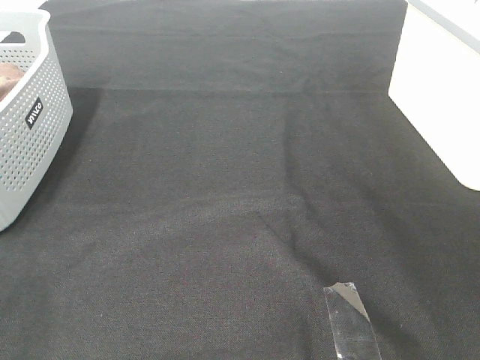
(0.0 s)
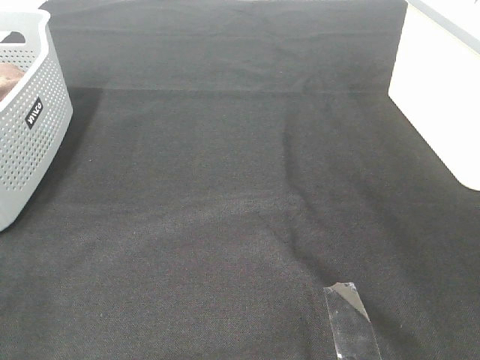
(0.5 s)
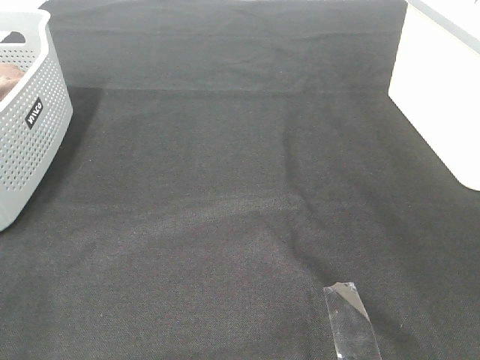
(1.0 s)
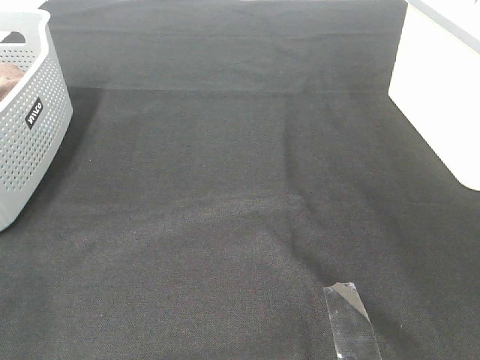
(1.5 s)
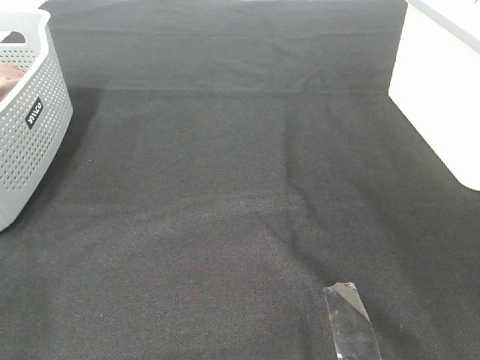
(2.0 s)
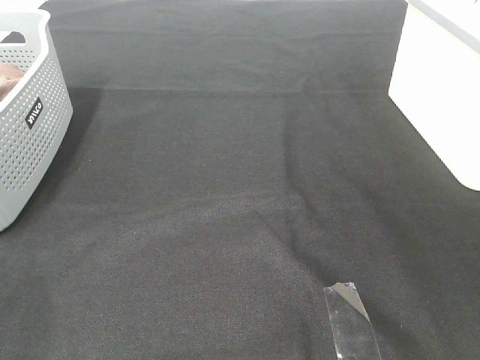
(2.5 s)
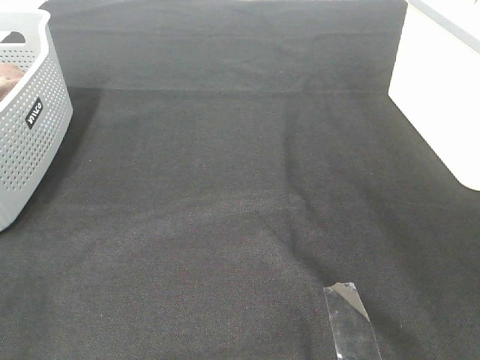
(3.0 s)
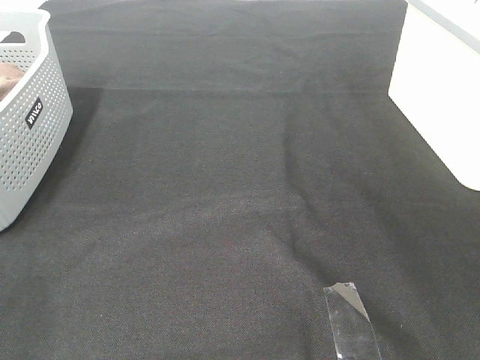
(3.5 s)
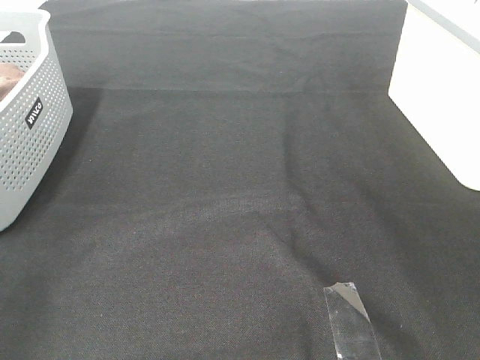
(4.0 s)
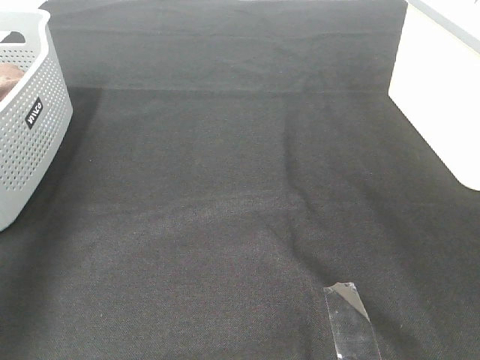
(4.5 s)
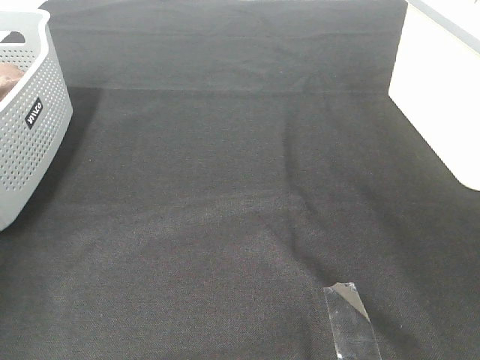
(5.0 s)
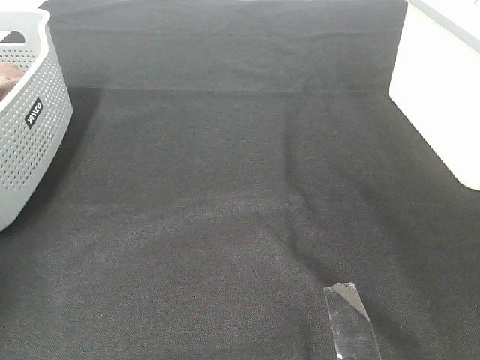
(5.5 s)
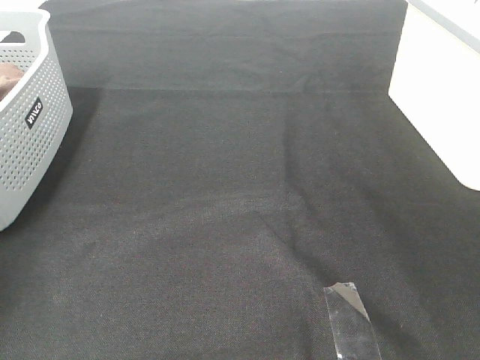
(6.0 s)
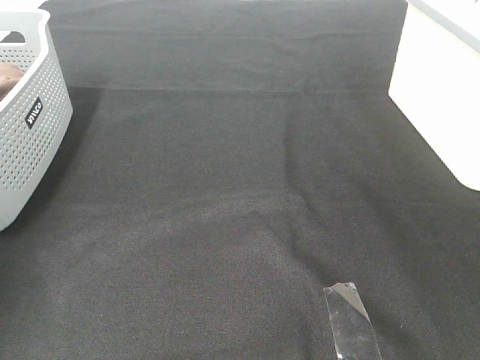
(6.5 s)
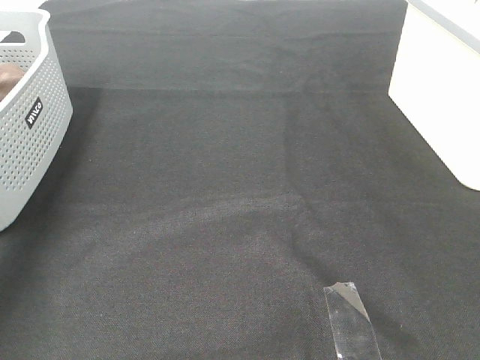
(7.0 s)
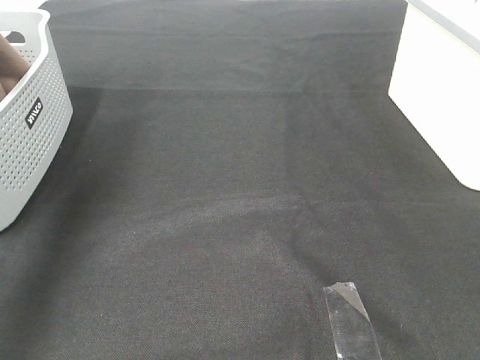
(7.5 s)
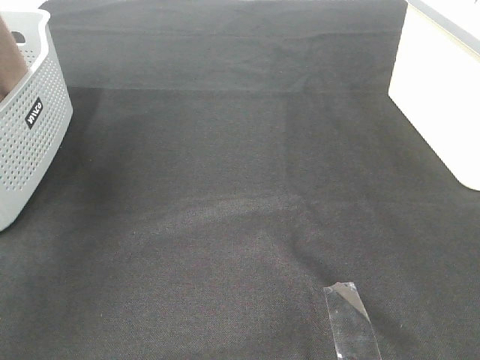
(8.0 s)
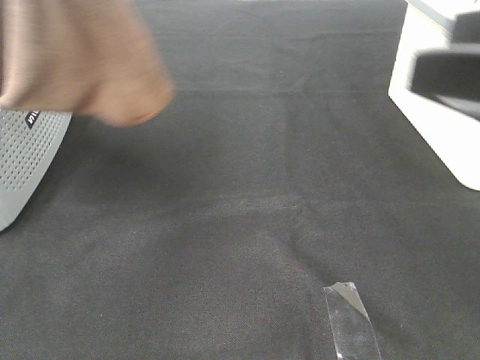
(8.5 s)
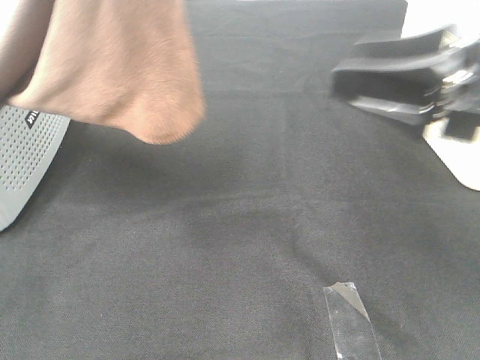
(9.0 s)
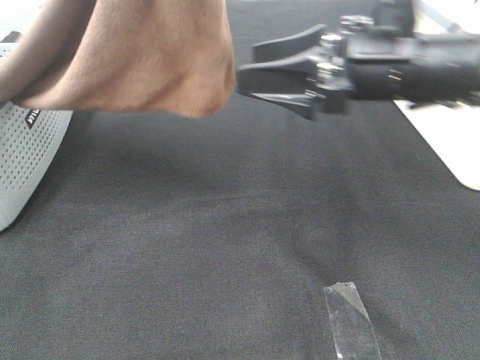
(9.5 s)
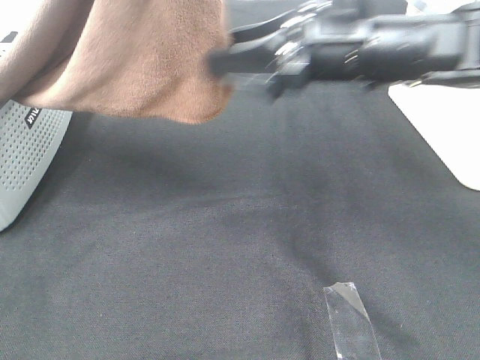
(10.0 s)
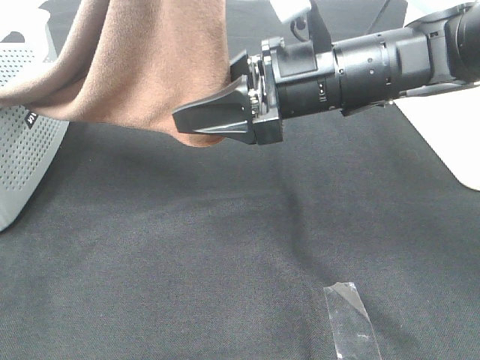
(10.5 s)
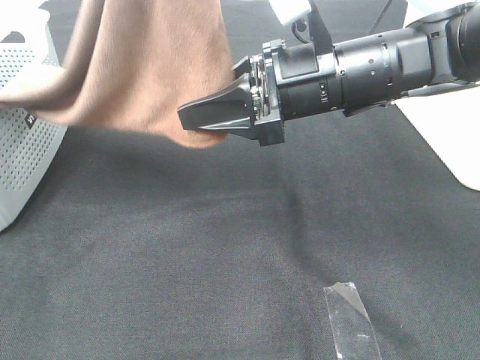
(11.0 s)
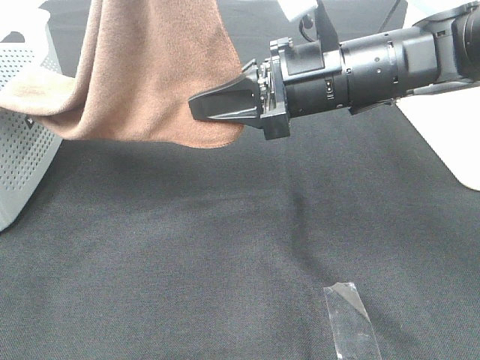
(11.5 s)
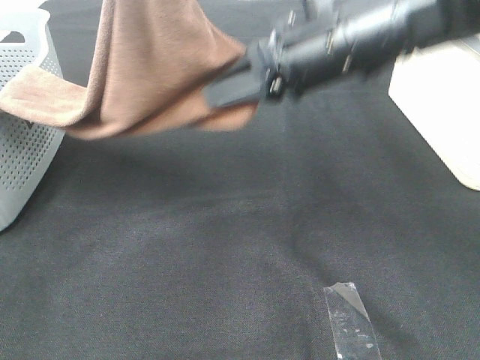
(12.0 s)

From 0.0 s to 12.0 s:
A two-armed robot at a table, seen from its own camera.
Task of the whole recording: Remove the towel and place it.
Step, from 8.0 s to 11.0 s: Right hand: grab a corner of the brown towel and straighten it.
From 0.0 s to 2.0 s: Both grippers stay put.
From 6.0 s to 8.0 s: The left gripper is displaced upward, to the right and backward by approximately 35 cm.
From 8.0 s to 10.0 s: The left gripper moves to the right, roughly 15 cm. The right gripper travels forward and to the left by approximately 30 cm.
From 10.0 s to 12.0 s: The right gripper closes its fingers.

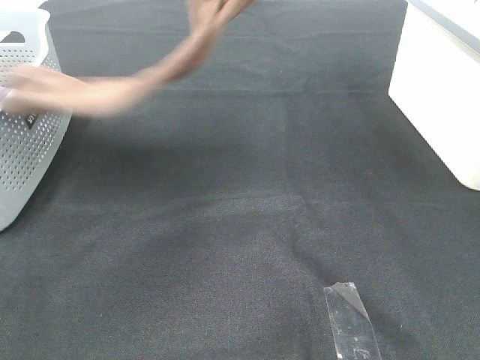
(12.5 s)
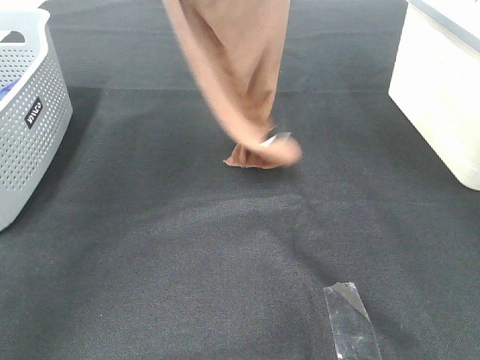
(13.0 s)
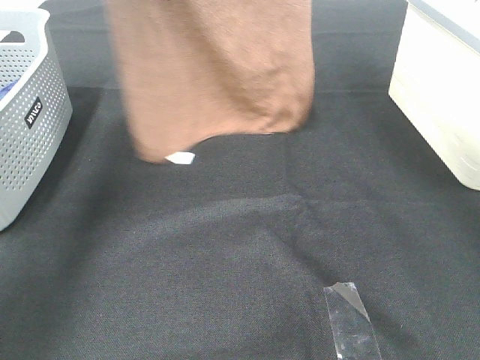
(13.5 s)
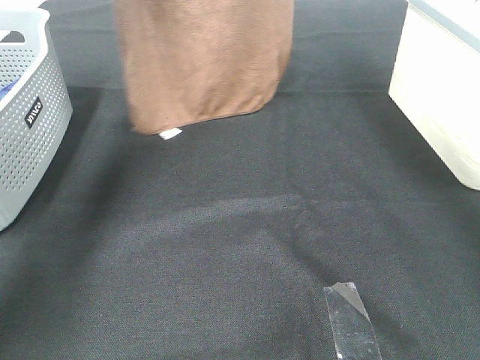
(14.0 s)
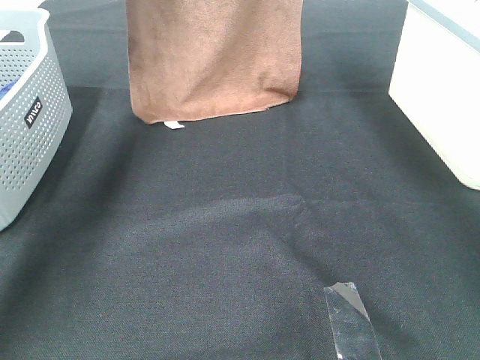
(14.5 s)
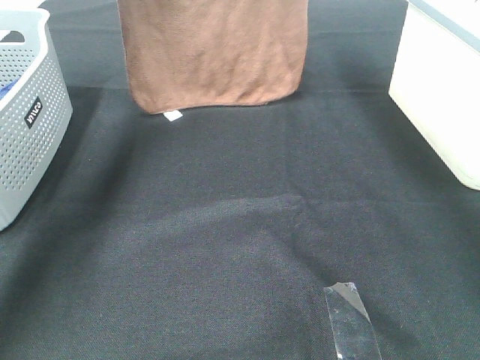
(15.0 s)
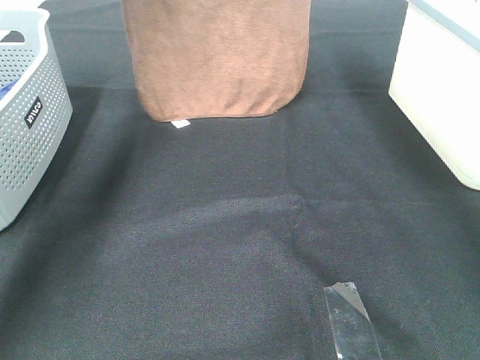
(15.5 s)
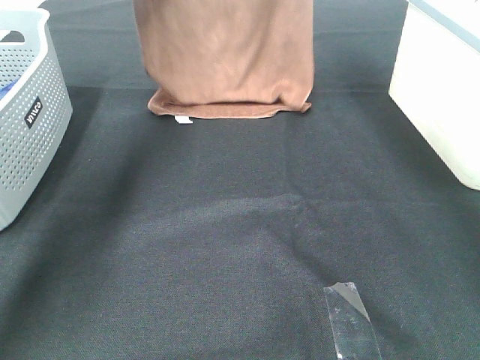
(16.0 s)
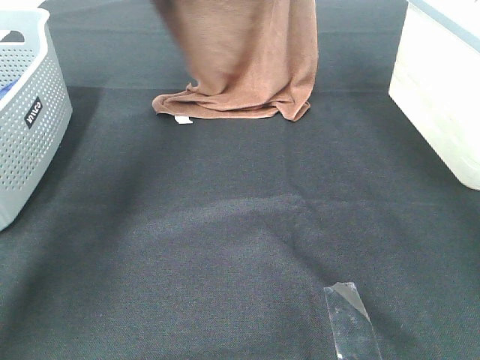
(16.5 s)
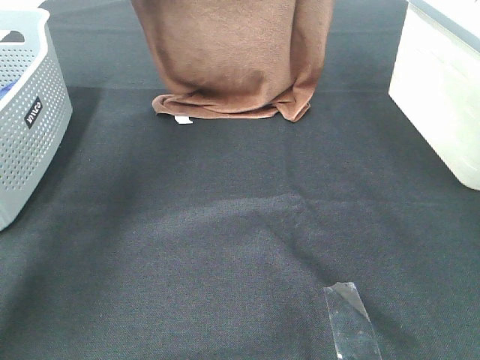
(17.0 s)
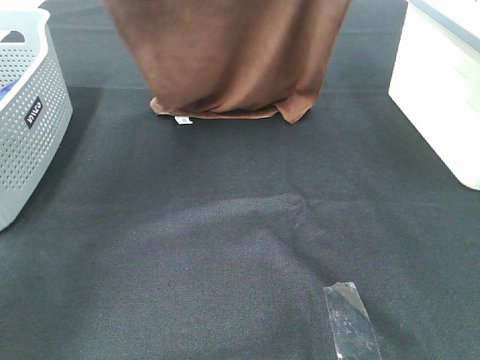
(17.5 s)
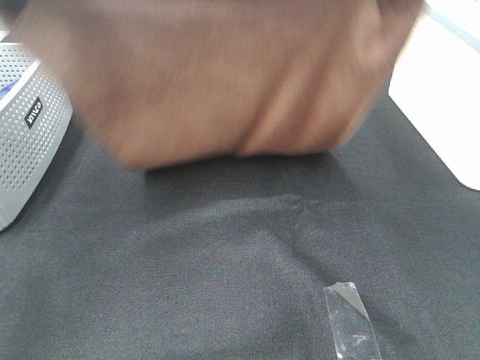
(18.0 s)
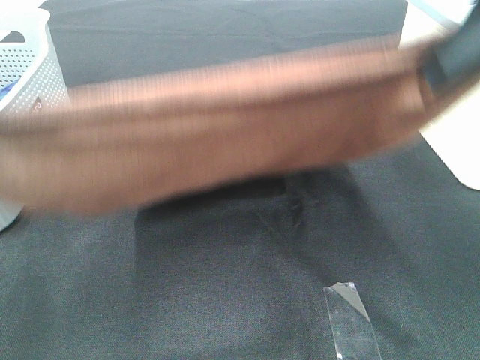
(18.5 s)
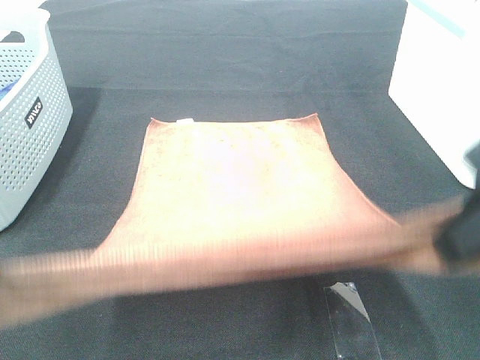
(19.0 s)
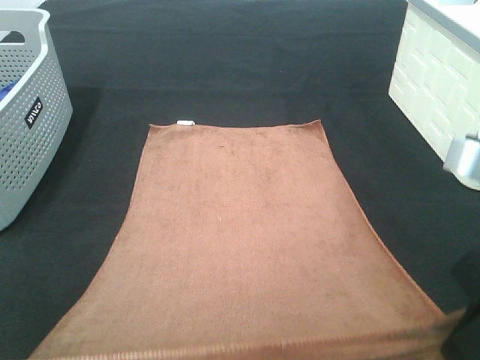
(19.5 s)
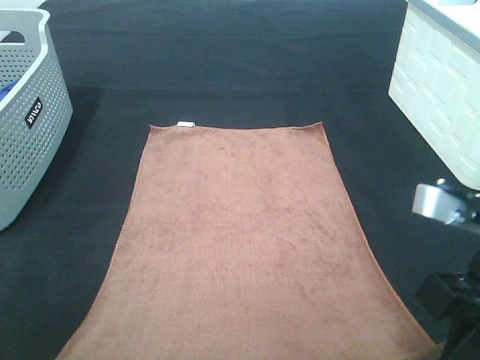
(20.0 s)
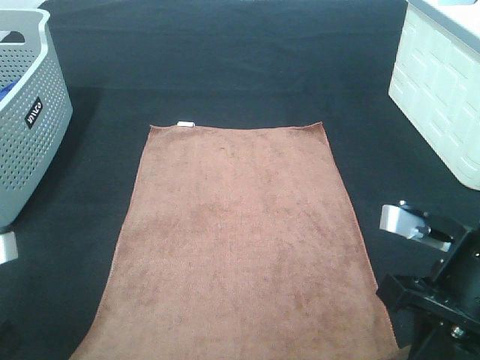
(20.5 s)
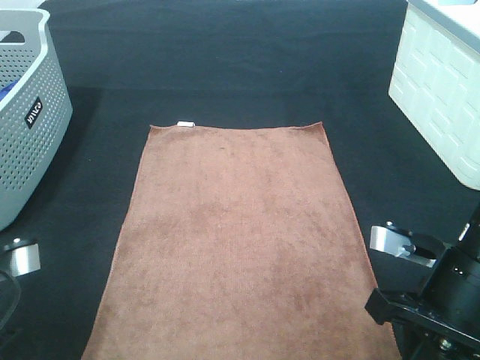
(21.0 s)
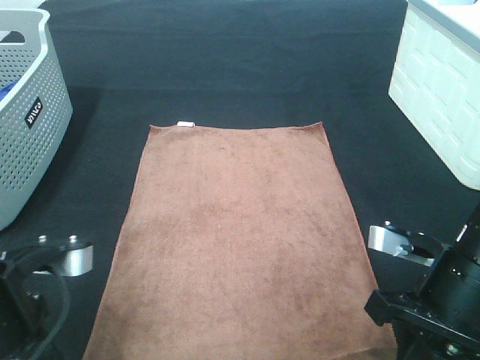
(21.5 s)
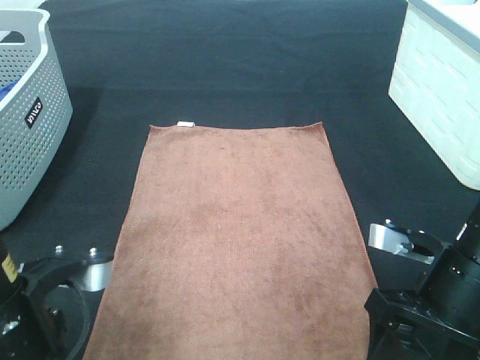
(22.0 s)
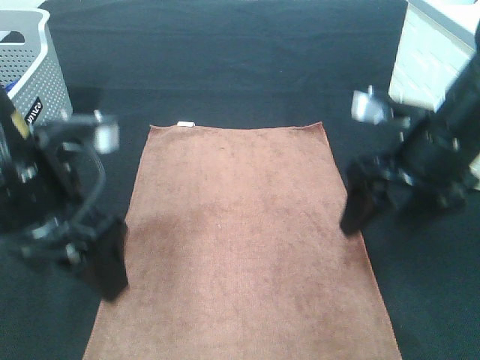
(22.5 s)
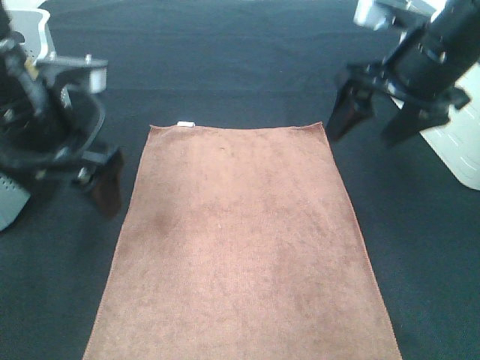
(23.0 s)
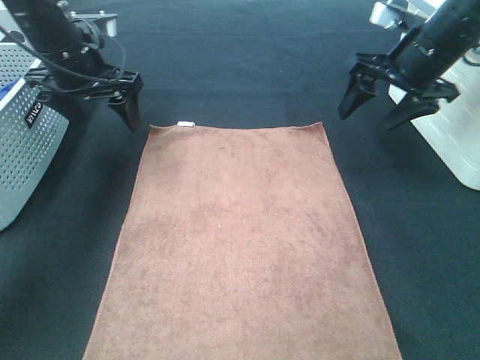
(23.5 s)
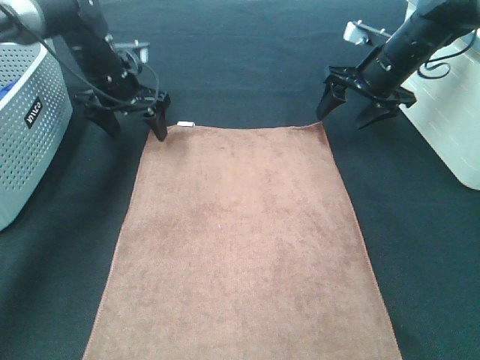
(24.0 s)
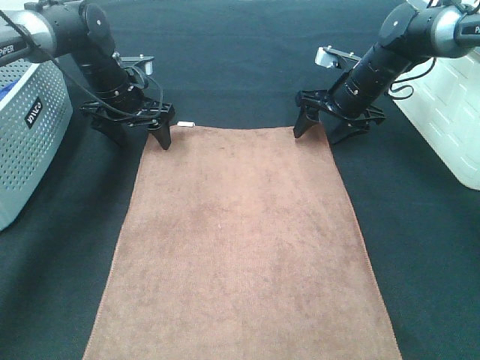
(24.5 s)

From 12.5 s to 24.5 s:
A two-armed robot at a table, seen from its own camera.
Task of the whole recording: Remove the towel and place it.
Step, from 12.5 s to 17.5 s: Left hand: spread the brown towel flat on the table.
Step, from 12.5 s to 17.5 s: Right hand: spread the brown towel flat on the table.
Step, from 18.0 s to 23.0 s: Left hand:adjust the brown towel.
Step, from 18.0 s to 23.0 s: Right hand:adjust the brown towel.
From 12.5 s to 14.5 s: The right gripper heads forward, covering about 15 cm, while the left gripper shifts about 25 cm forward.
From 14.5 s to 16.5 s: The left gripper ends up about 5 cm from where it was.
From 16.5 s to 18.5 s: Both grippers travel together backward, some 35 cm.
From 18.5 s to 20.5 s: Both grippers move downward, some 20 cm.
From 20.5 s to 22.5 s: The left gripper shifts approximately 10 cm forward and to the right, and opens, while the right gripper is displaced forward by roughly 10 cm, and opens.
From 22.5 s to 24.5 s: Both grippers travel together forward, roughly 25 cm.

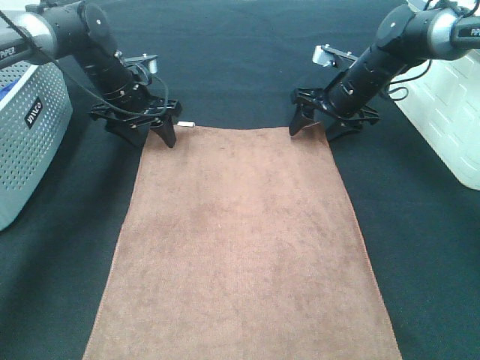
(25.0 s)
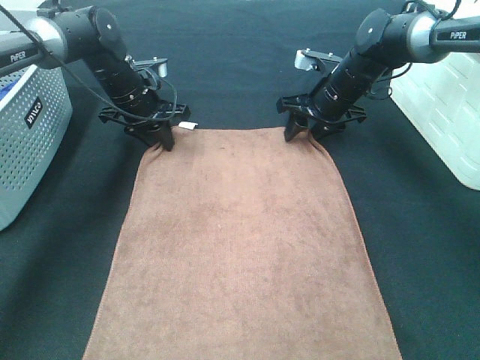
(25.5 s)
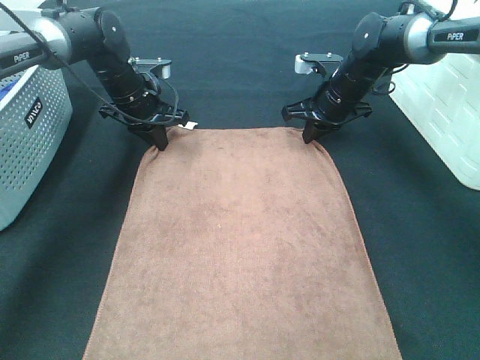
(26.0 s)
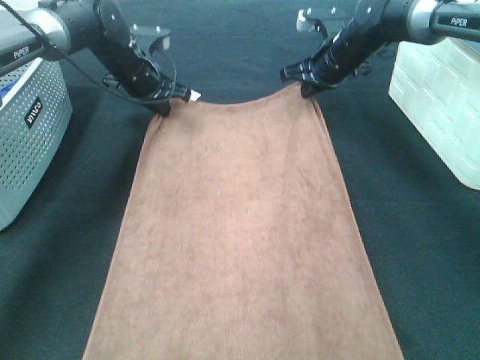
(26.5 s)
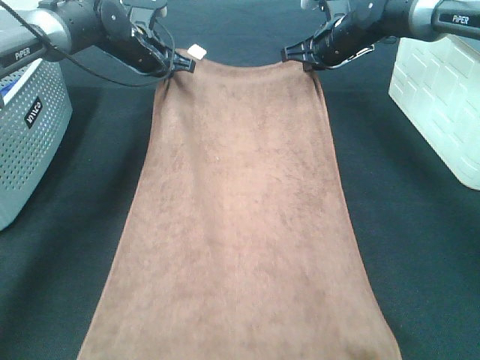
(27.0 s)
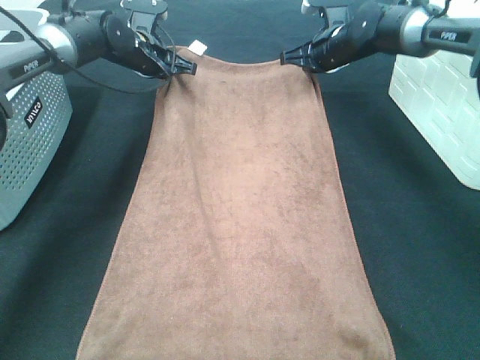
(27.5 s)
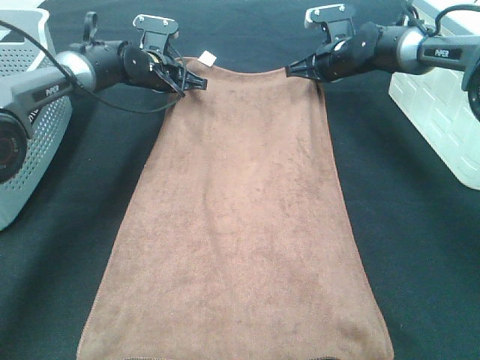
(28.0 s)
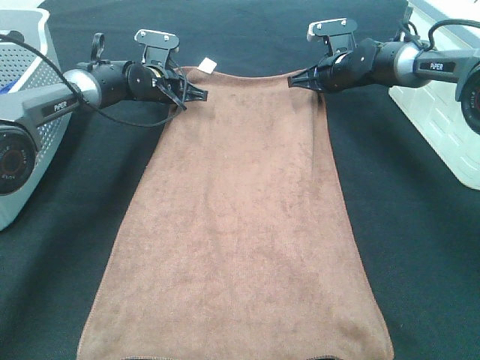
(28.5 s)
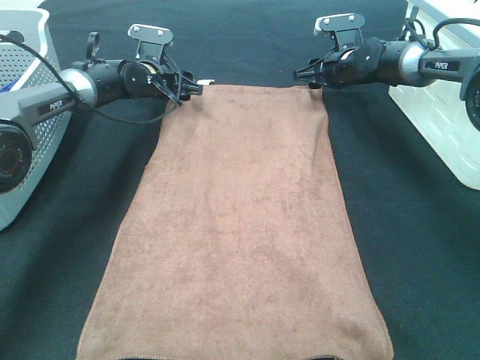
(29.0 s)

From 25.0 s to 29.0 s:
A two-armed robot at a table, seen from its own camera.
Task of the whole recording: Remove the towel and place it.
From 25.0 s to 27.0 s: The right gripper moves upward, about 5 cm, and closes. Meanwhile the left gripper is displaced forward by approximately 5 cm, and closes up.
From 27.0 s to 29.0 s: Both grippers move downward, roughly 5 cm. The left gripper opens its fingers. Meanwhile the right gripper opens up.
